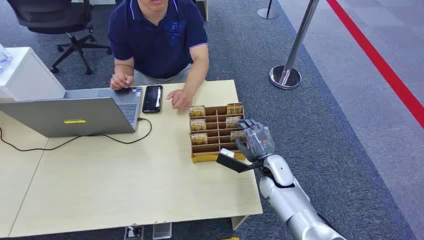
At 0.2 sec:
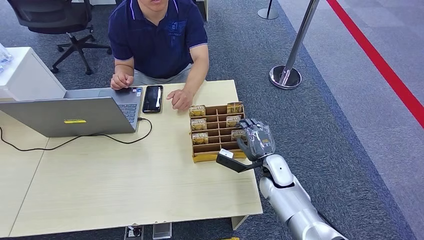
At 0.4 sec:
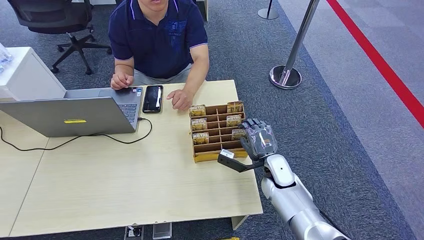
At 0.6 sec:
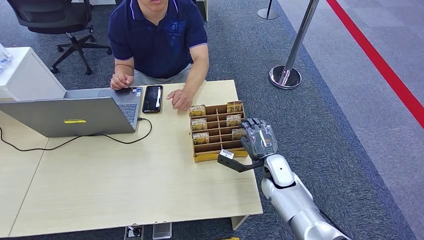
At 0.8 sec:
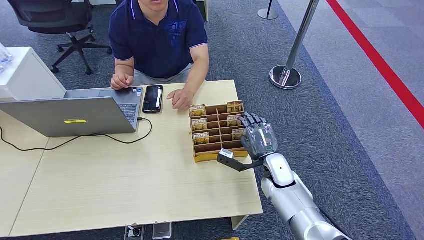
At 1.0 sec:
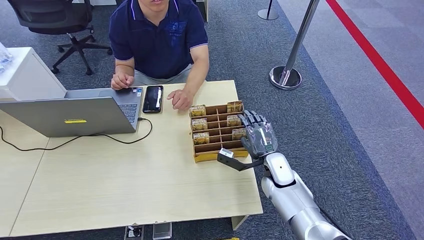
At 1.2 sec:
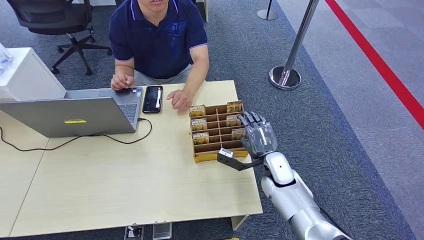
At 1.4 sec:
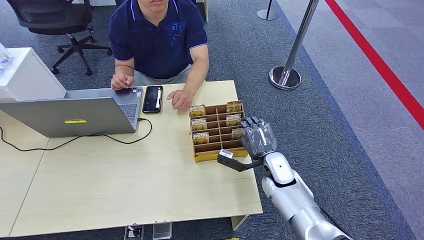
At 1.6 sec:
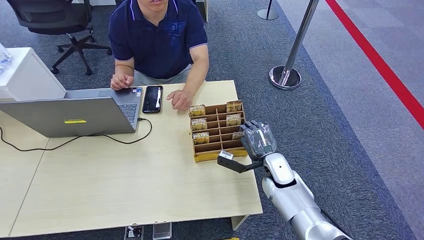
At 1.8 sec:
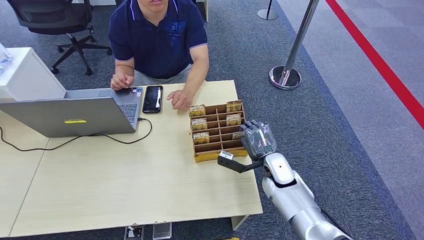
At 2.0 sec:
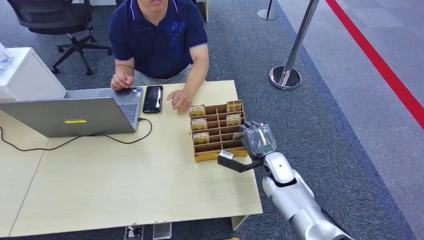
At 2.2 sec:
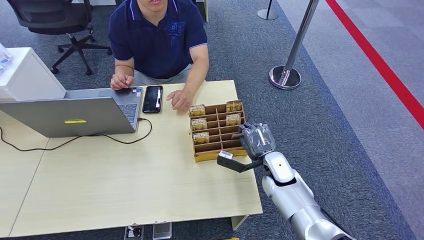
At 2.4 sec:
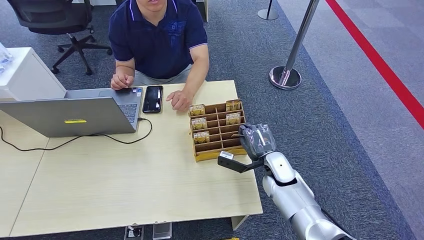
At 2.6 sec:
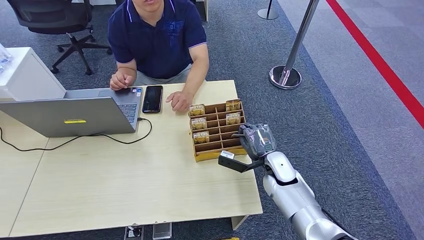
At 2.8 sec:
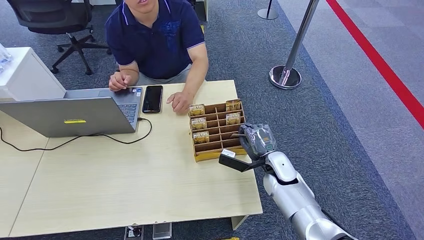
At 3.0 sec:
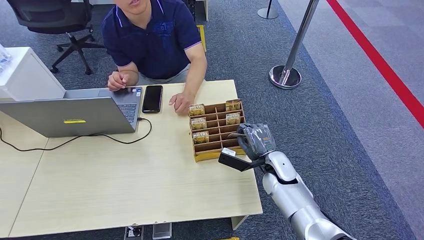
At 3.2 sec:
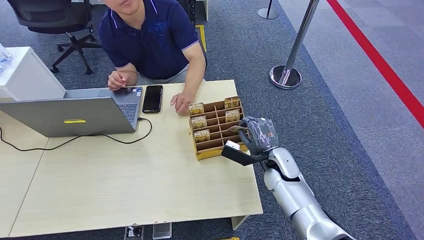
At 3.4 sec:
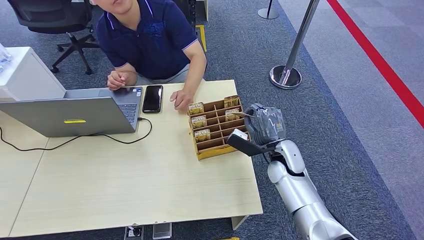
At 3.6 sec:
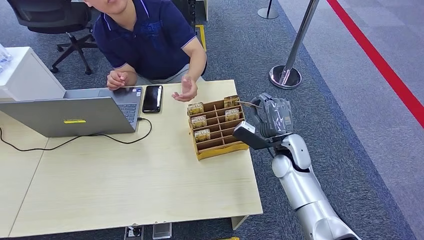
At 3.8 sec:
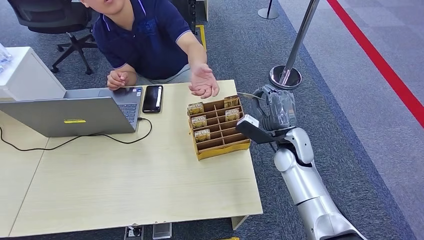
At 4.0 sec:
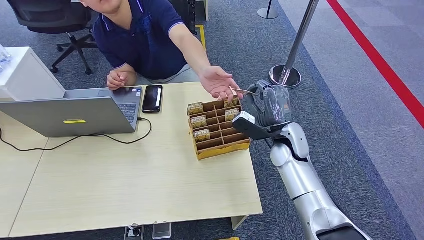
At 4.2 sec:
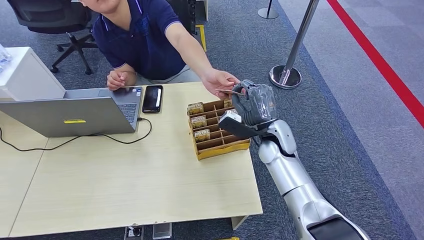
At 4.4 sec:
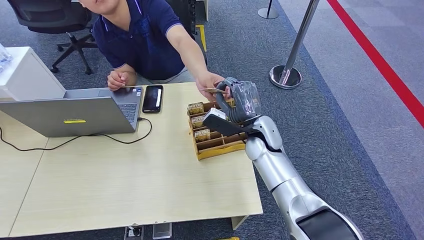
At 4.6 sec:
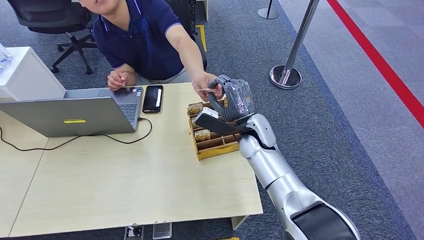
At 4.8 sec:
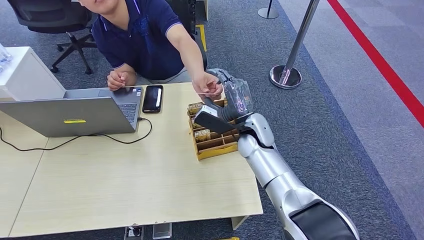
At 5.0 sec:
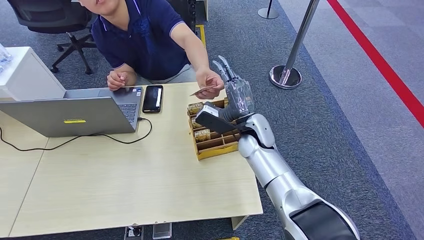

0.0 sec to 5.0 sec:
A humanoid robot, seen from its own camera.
Step, 0.0 sec to 3.2 sec: Pick up the room card from the card holder.
Step, 3.6 sec to 5.0 sec: Hand the room card to the target.
3.4 sec to 5.0 sec: The right hand moves to the left, upward and forward, some 10 cm.
